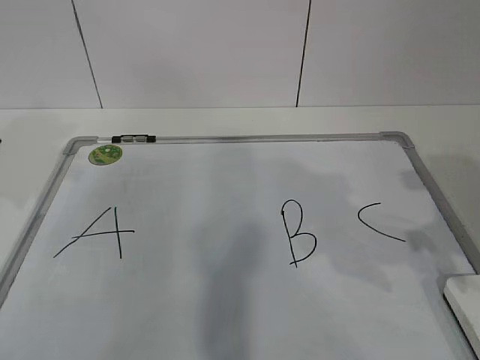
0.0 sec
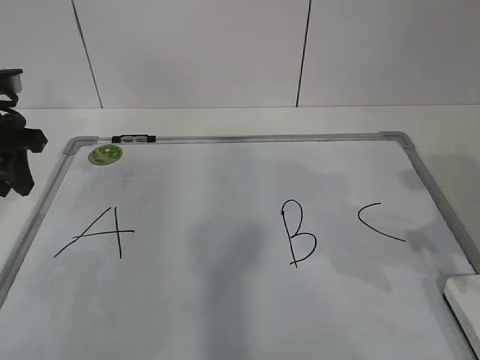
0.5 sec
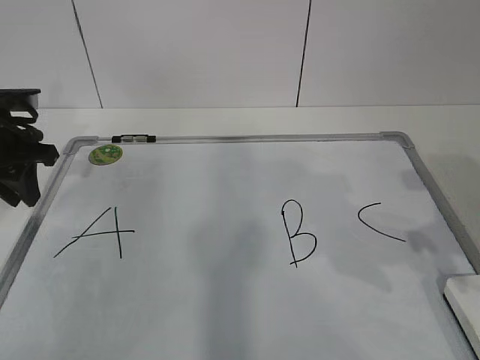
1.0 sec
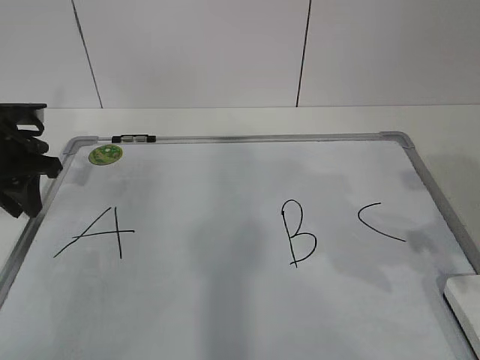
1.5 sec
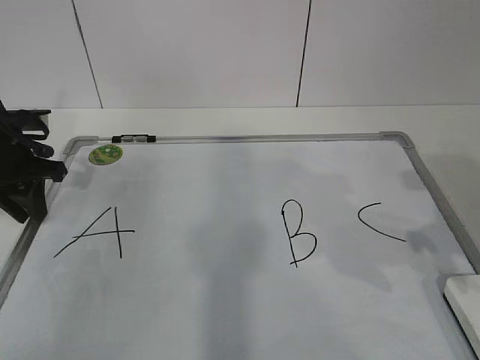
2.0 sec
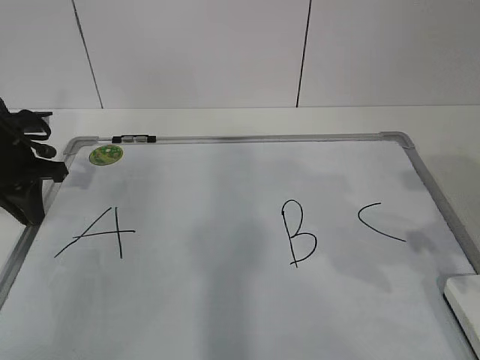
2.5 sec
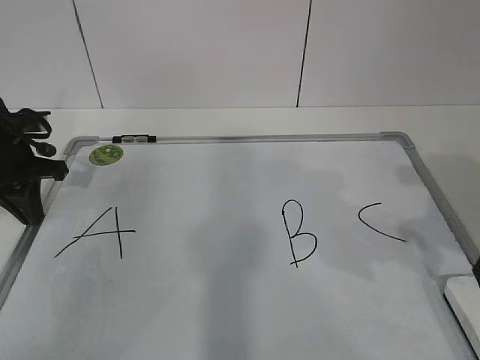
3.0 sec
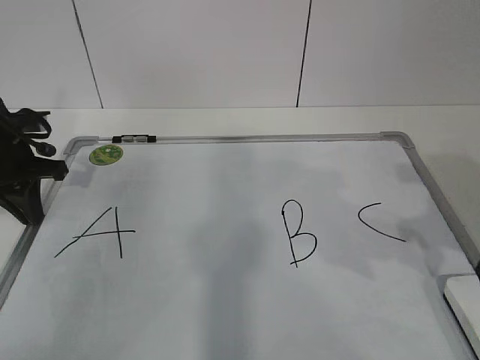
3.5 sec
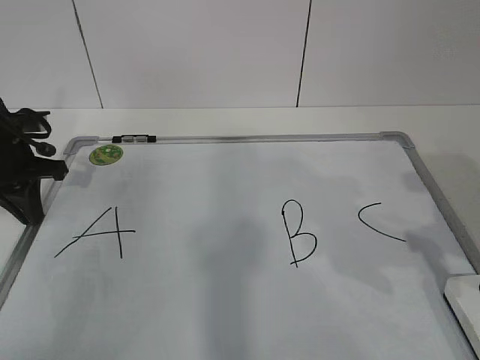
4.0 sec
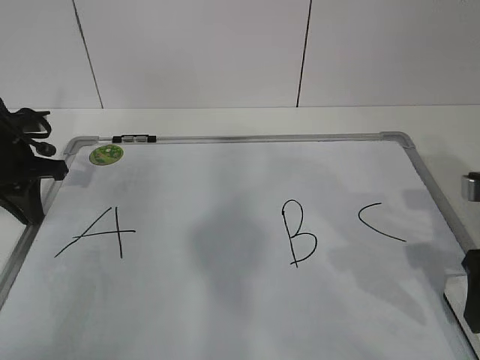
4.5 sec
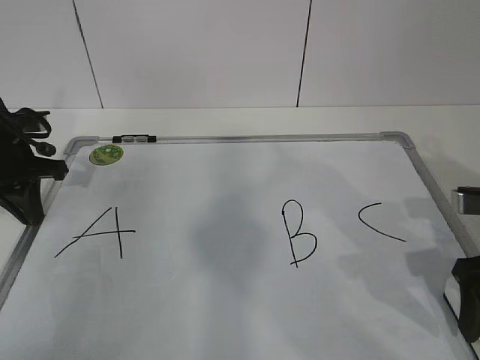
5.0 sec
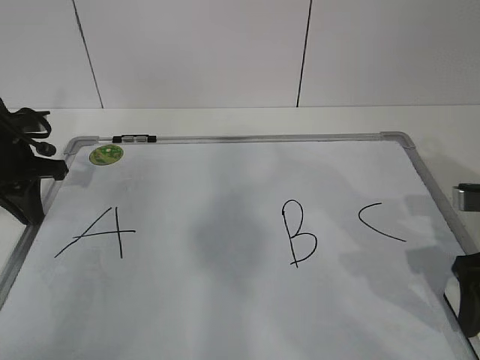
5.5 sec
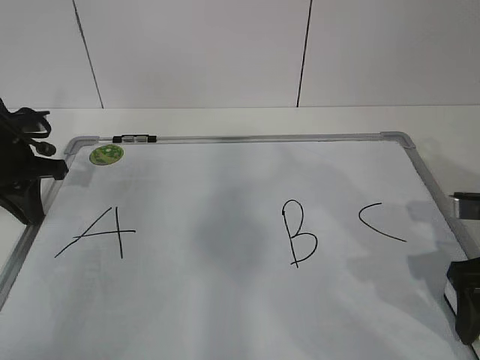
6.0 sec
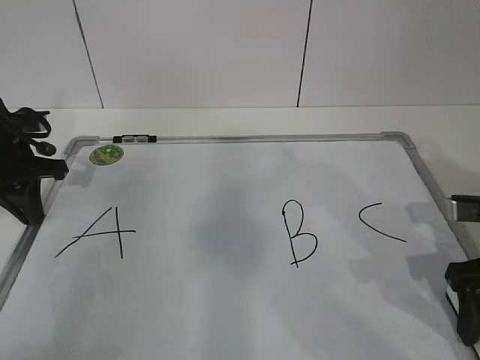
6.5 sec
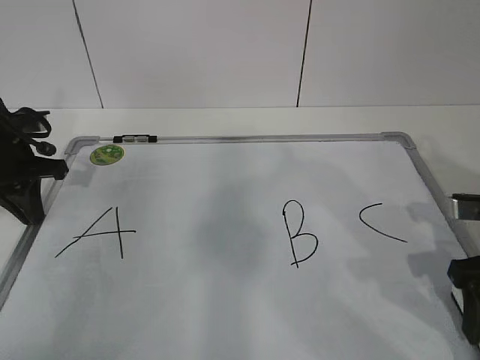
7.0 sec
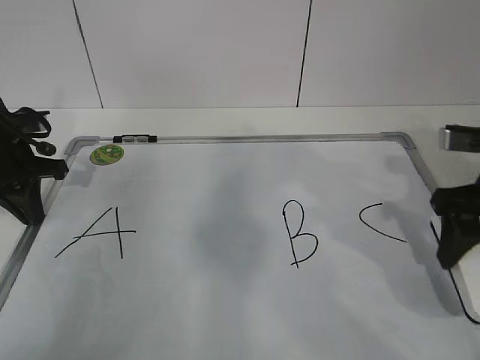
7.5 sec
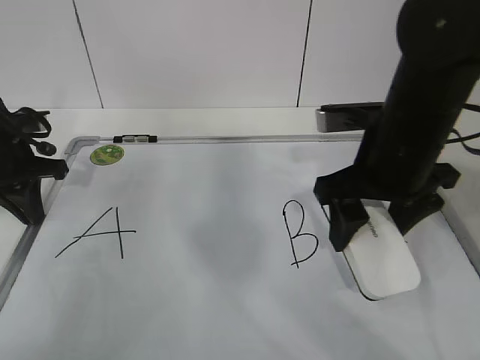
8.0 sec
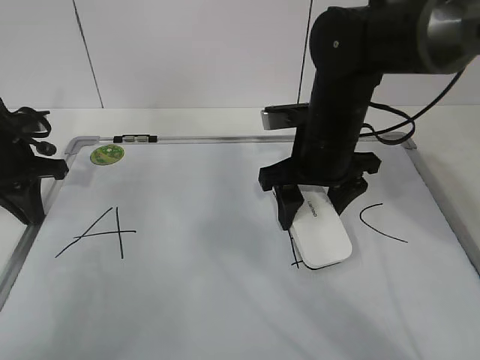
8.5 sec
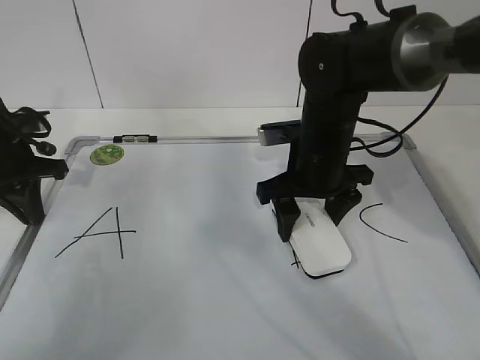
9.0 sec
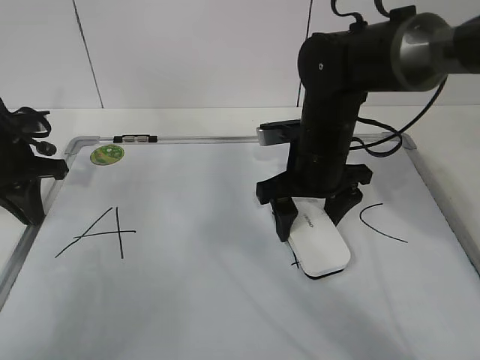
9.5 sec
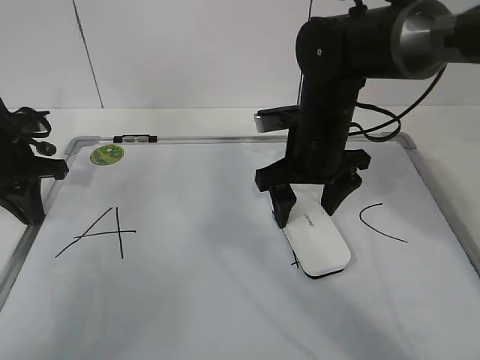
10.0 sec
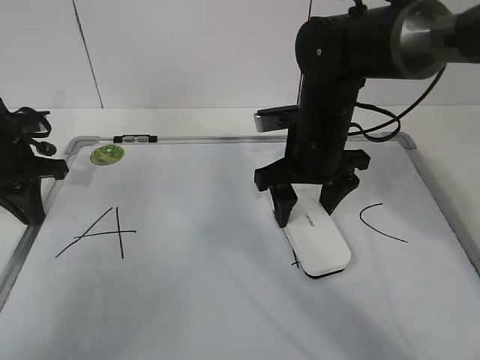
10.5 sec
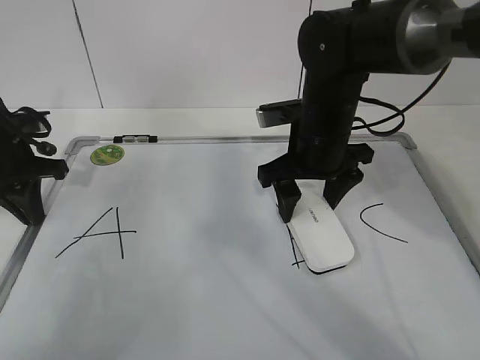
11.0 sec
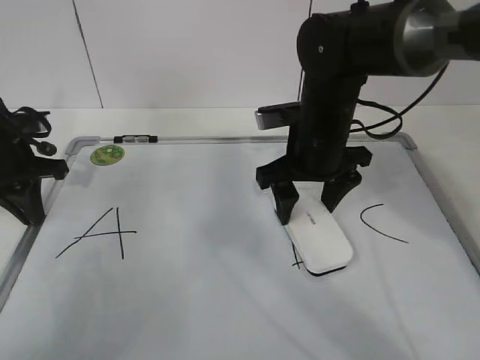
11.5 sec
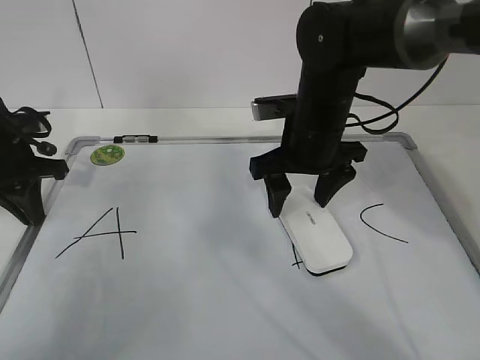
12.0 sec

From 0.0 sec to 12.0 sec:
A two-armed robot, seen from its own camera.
Task of the whole recording: pick up the eraser on the blackboard and erase the letter "B".
Step, from 2.0 sec to 5.0 sec: Grab the eraser with your right hand.
From 0.0 sec to 2.0 sec: The left gripper shifts some 15 cm downward and forward.
From 2.0 sec to 4.0 sec: The left gripper closes up.
From 4.0 sec to 6.0 sec: The right gripper moves downward, roughly 5 cm.
From 6.0 sec to 8.0 sec: The right gripper heads to the left, upward and forward, covering roughly 15 cm, and closes its fingers.
From 8.0 sec to 10.0 sec: The right gripper is displaced forward and to the left by about 10 cm, and opens up.
From 10.0 sec to 12.0 sec: Both grippers stay put.

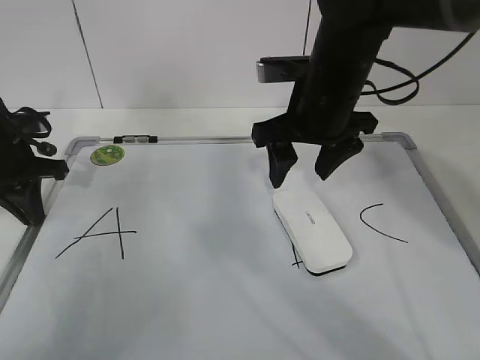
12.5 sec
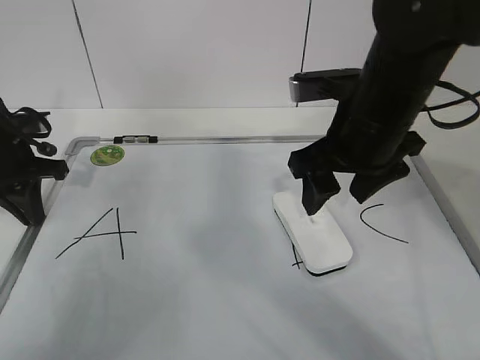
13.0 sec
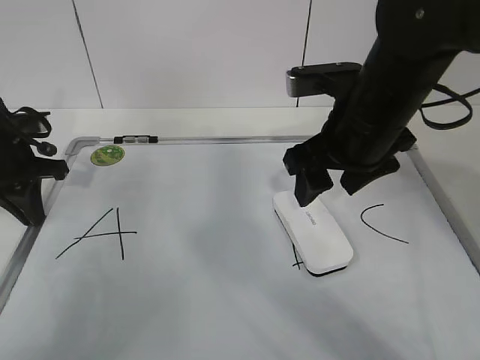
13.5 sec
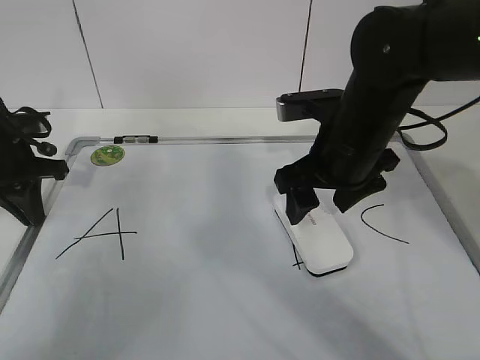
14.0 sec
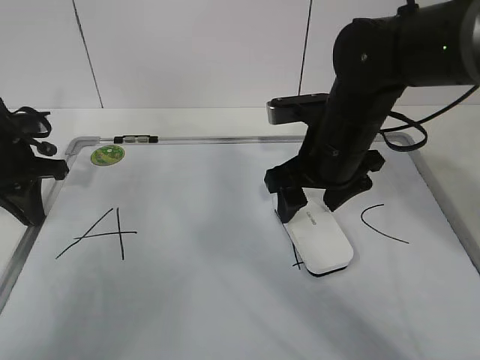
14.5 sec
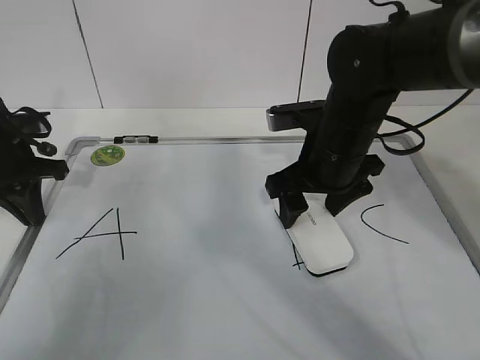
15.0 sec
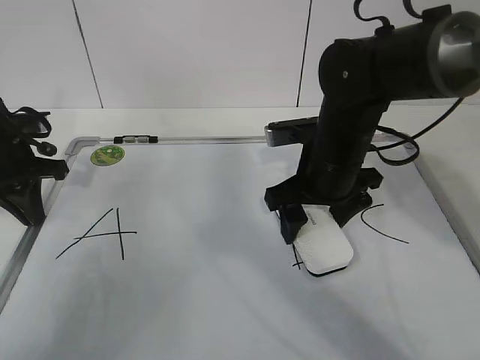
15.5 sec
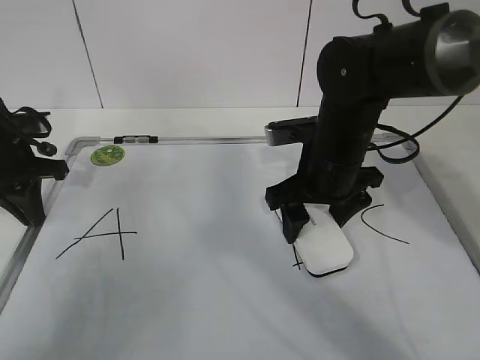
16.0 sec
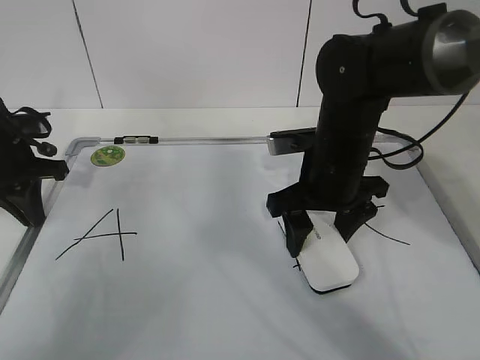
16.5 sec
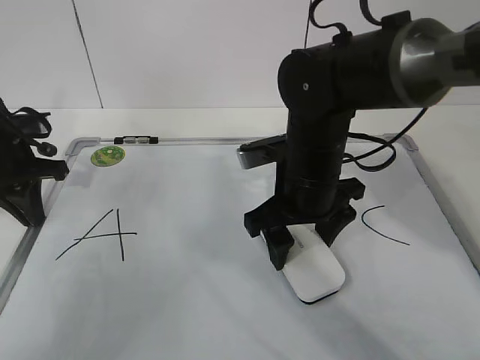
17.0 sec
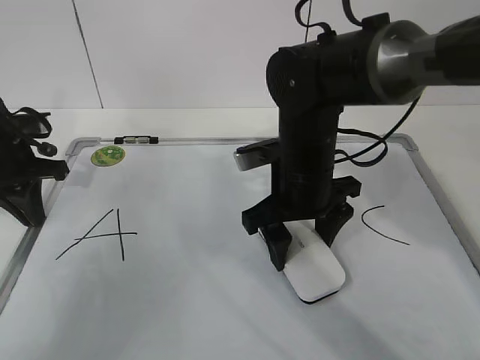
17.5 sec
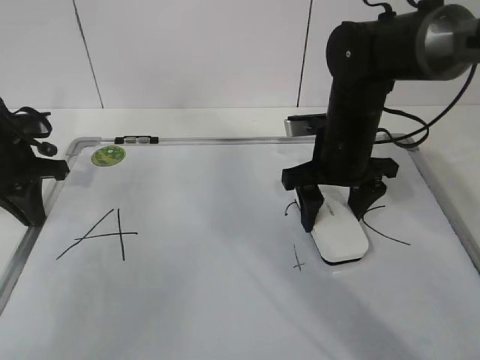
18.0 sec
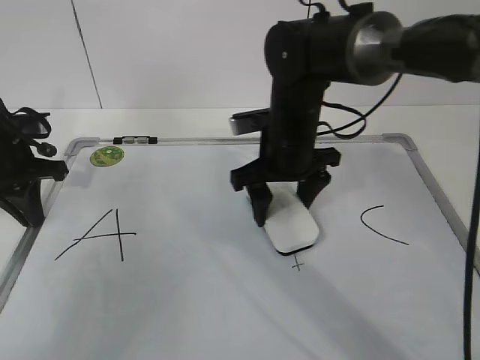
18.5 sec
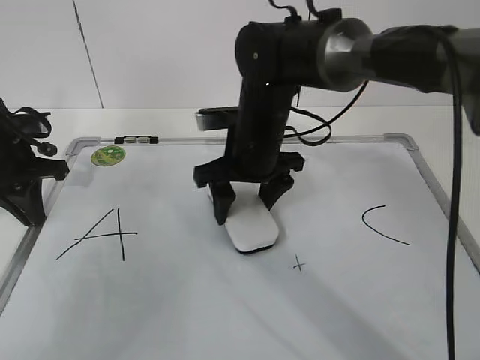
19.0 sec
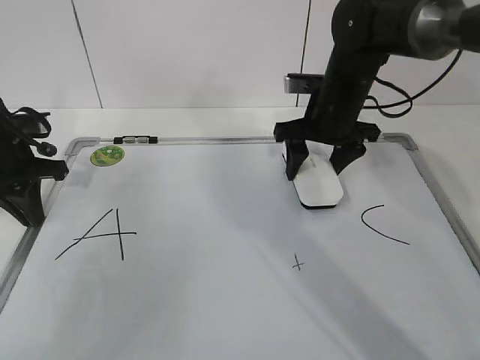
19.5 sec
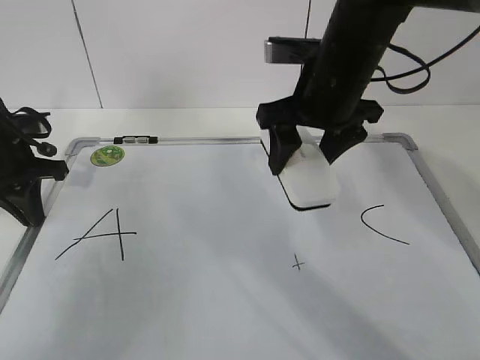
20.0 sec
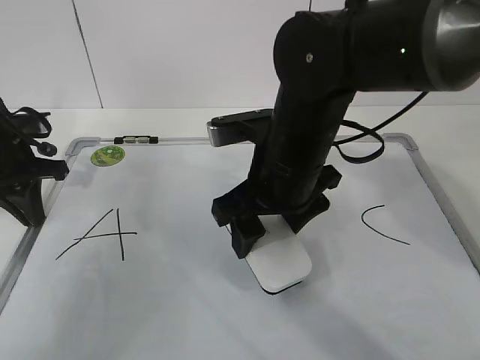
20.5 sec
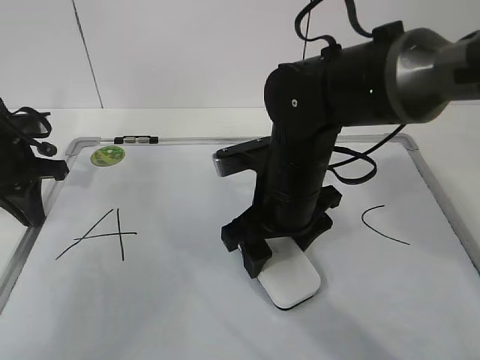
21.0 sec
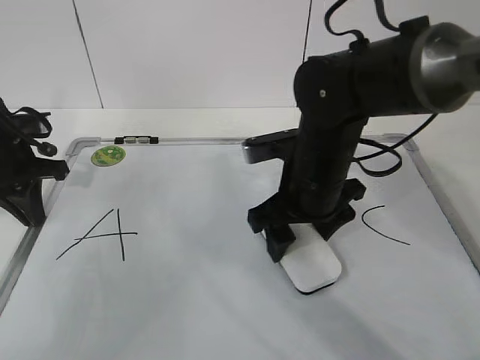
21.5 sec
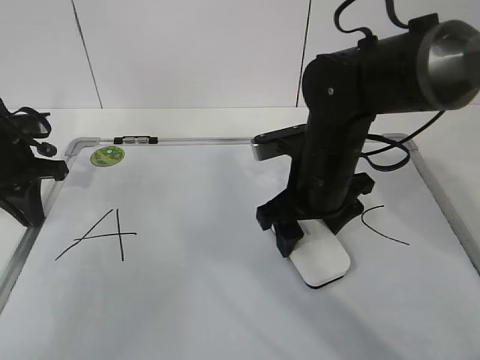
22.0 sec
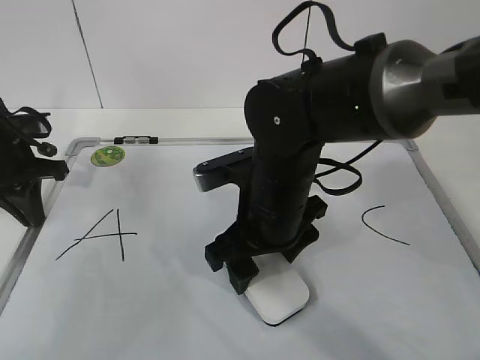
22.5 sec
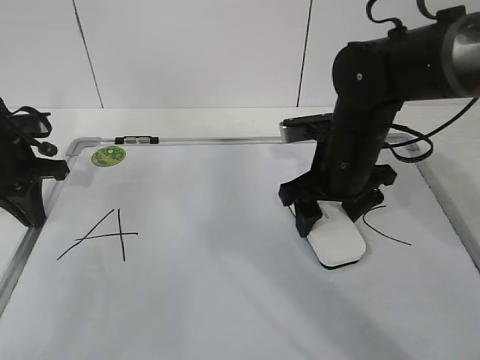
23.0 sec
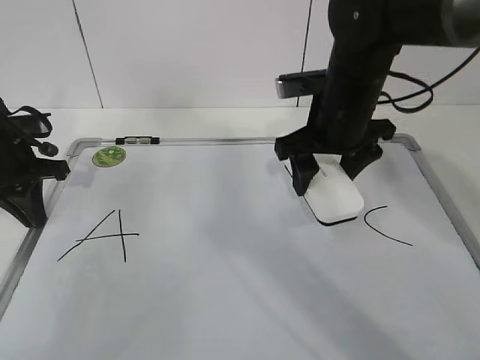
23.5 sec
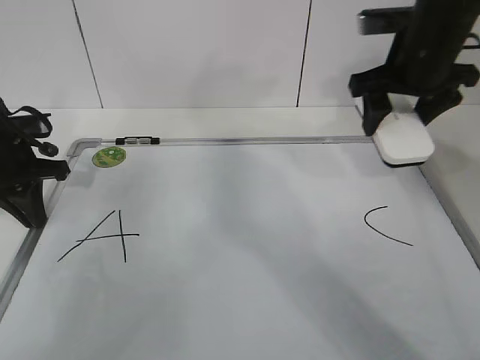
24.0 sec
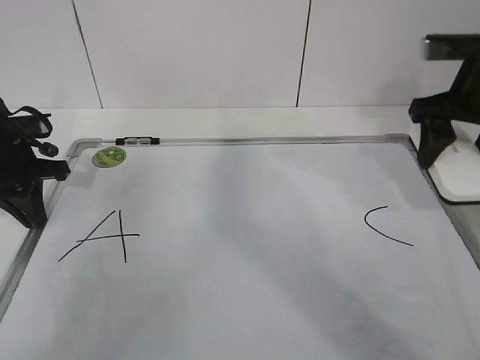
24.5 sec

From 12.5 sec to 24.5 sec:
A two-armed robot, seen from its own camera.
Task of the whole recording: pick up the eraser on the blackboard and erase the letter "B".
Step, from 12.5 sec to 18.5 sec: Erase the letter B with your right hand.
Step, from 19.0 sec to 22.0 sec: Put down the eraser with your right hand.
From 12.5 sec to 14.5 sec: The right gripper ends up roughly 5 cm from where it was, and opens up.
From 14.5 sec to 16.5 sec: The right gripper closes up.
From 16.5 sec to 18.5 sec: The right gripper shifts by some 5 cm.
From 18.5 sec to 20.5 sec: The right gripper goes roughly 10 cm backward.
From 20.5 sec to 22.5 sec: The right gripper moves approximately 5 cm.
From 22.5 sec to 24.5 sec: The right gripper shifts about 25 cm to the right and upward.

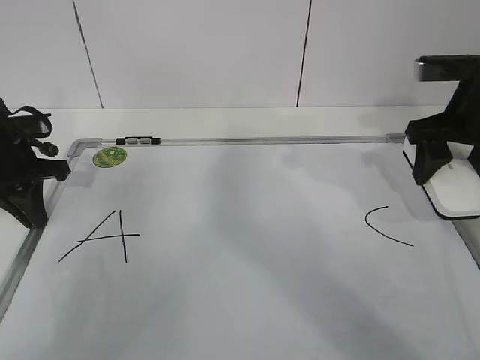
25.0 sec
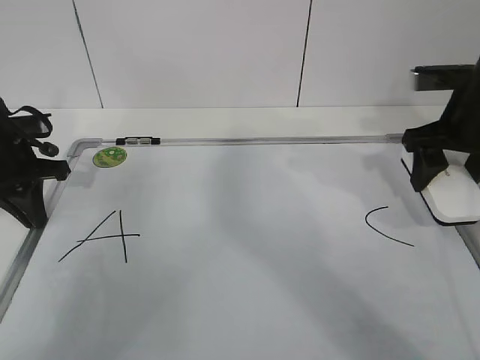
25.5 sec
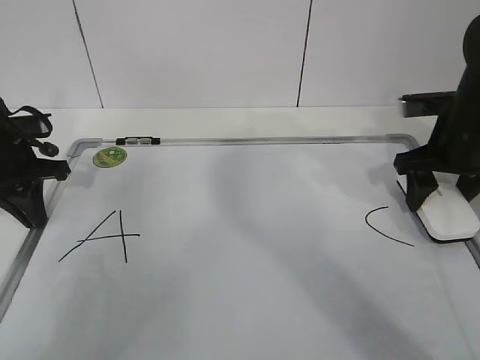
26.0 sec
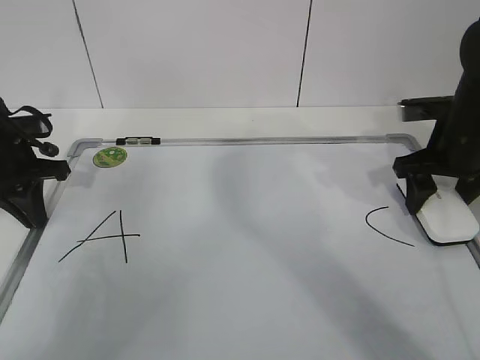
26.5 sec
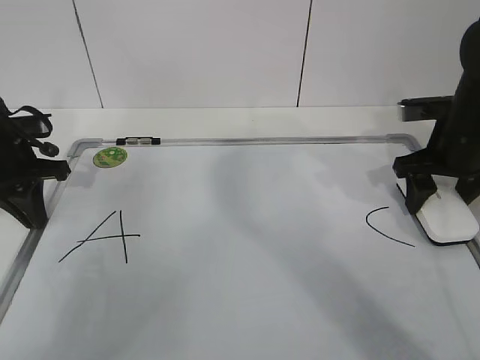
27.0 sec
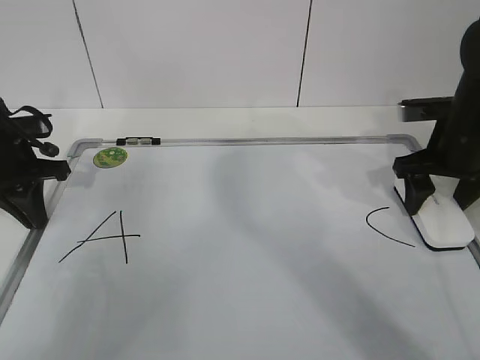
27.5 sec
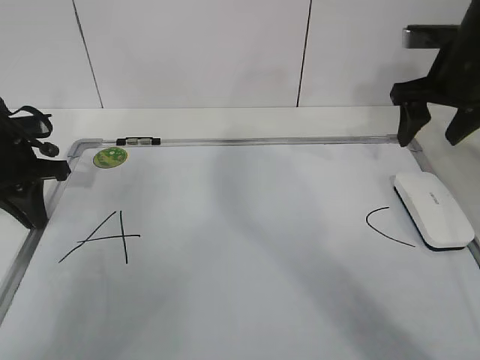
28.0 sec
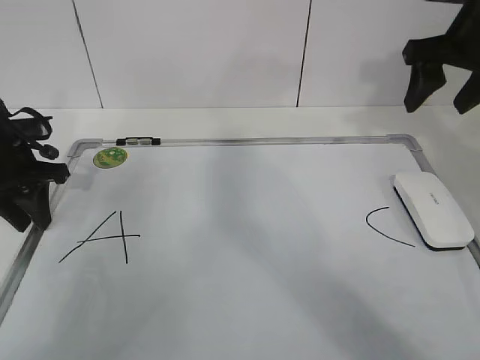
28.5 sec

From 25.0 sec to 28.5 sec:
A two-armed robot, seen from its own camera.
Task of the whole recording: pick up the eraser on the blackboard and erase the letter "B".
From 25.0 sec to 27.0 sec: The right gripper goes about 5 cm downward.
From 27.0 sec to 28.5 sec: The right gripper shifts about 10 cm upward. The left gripper opens up.
